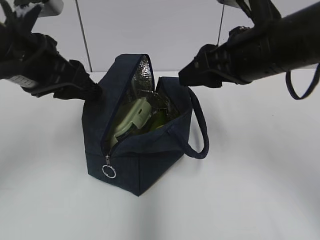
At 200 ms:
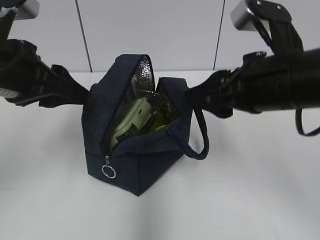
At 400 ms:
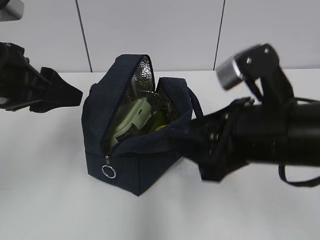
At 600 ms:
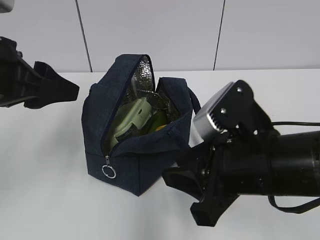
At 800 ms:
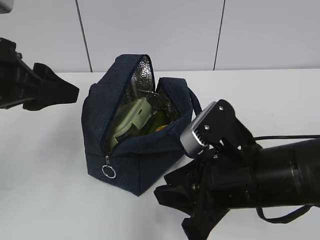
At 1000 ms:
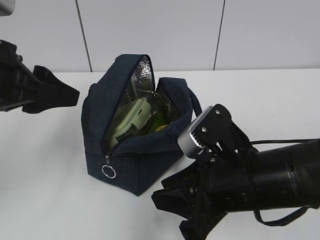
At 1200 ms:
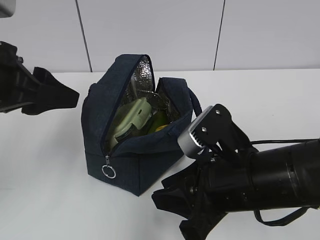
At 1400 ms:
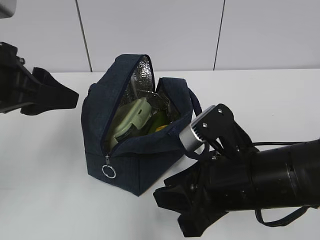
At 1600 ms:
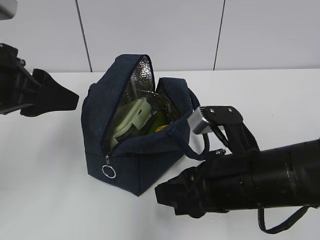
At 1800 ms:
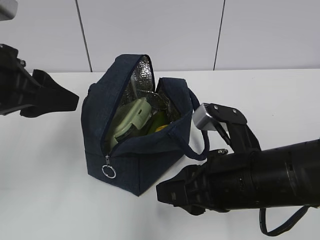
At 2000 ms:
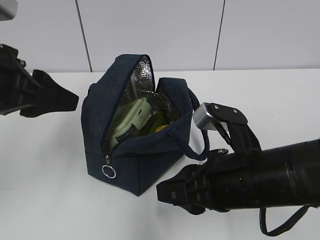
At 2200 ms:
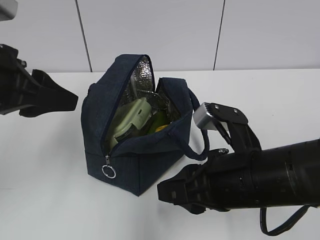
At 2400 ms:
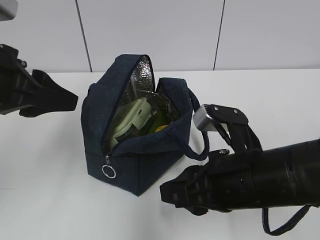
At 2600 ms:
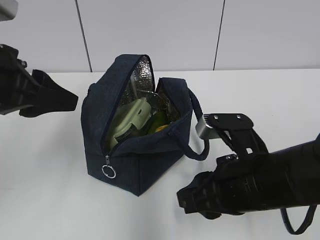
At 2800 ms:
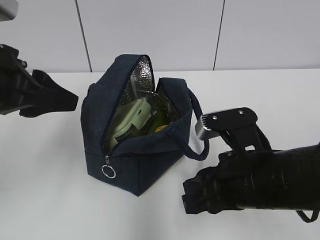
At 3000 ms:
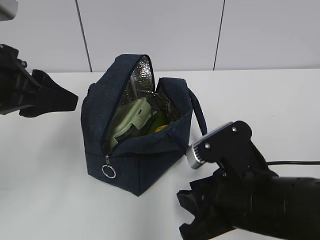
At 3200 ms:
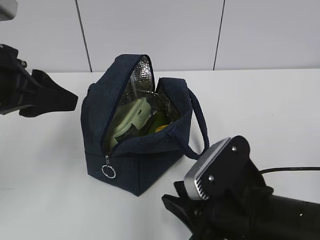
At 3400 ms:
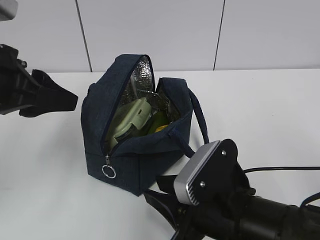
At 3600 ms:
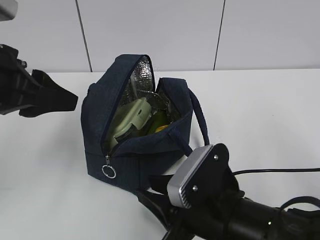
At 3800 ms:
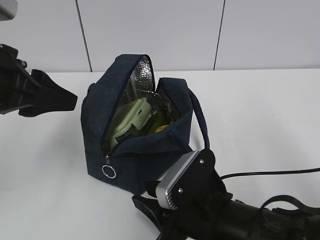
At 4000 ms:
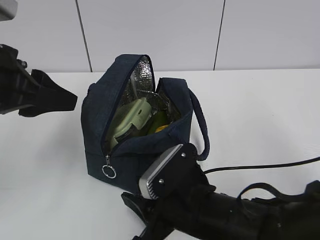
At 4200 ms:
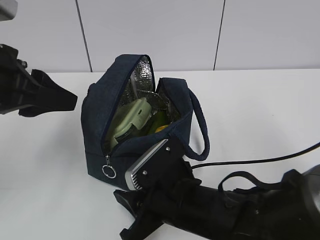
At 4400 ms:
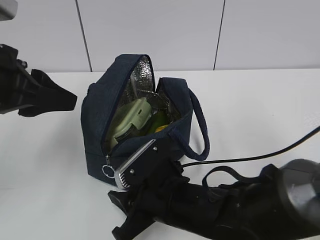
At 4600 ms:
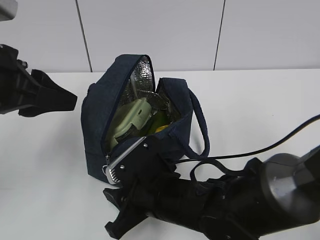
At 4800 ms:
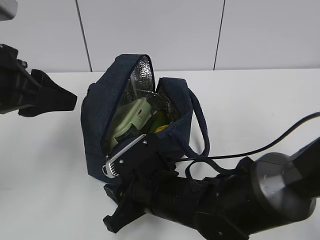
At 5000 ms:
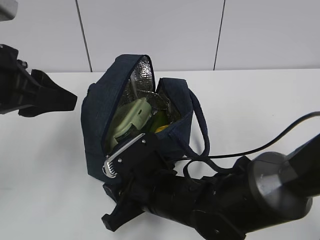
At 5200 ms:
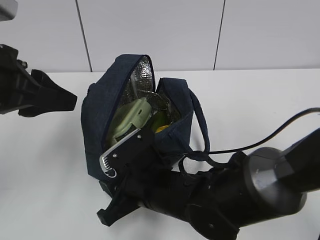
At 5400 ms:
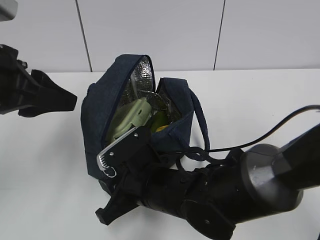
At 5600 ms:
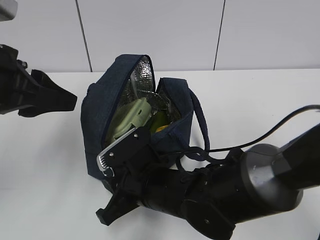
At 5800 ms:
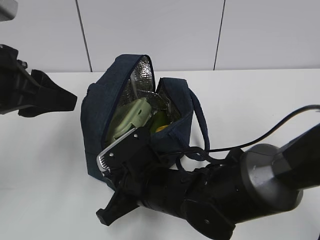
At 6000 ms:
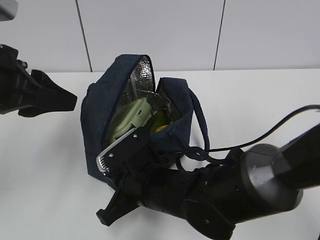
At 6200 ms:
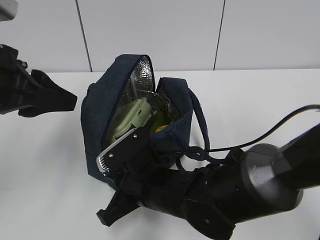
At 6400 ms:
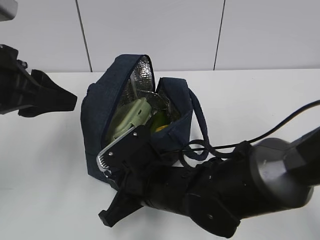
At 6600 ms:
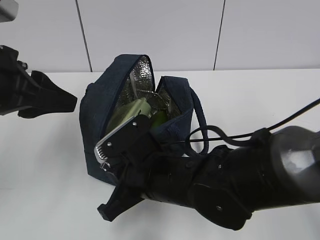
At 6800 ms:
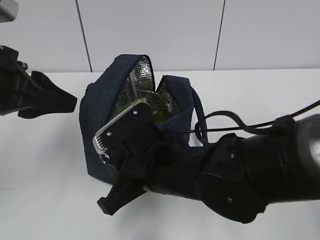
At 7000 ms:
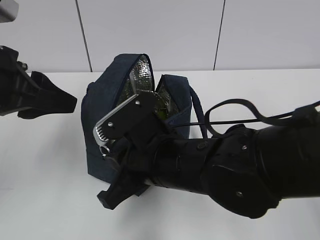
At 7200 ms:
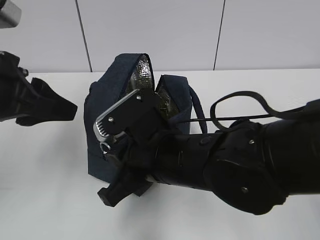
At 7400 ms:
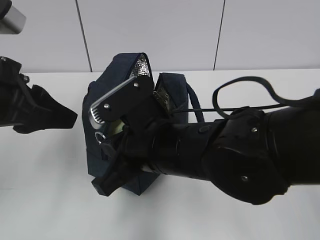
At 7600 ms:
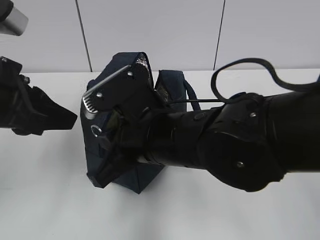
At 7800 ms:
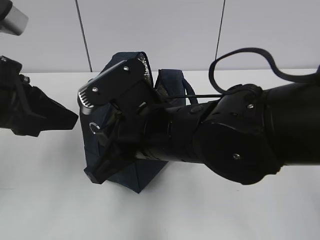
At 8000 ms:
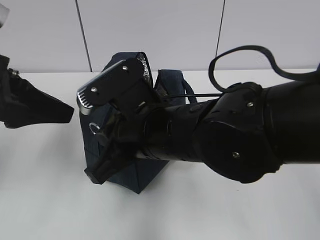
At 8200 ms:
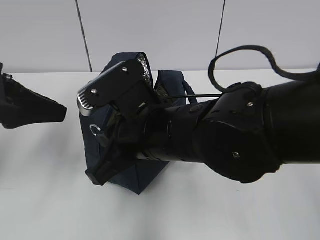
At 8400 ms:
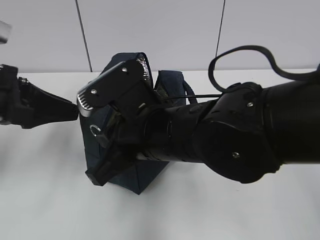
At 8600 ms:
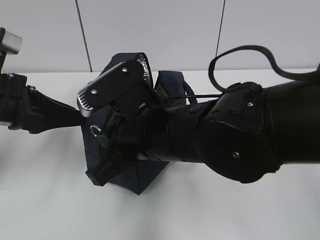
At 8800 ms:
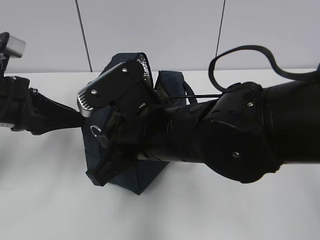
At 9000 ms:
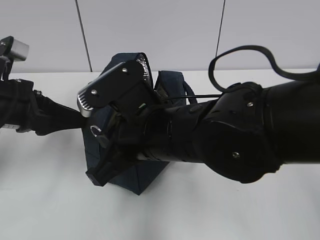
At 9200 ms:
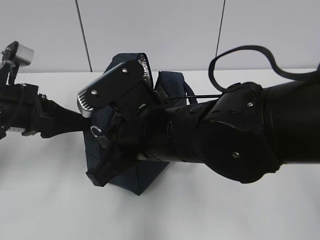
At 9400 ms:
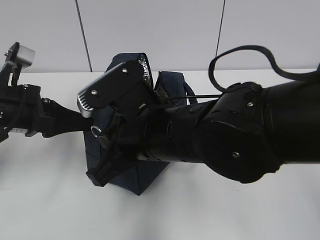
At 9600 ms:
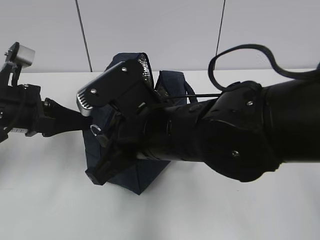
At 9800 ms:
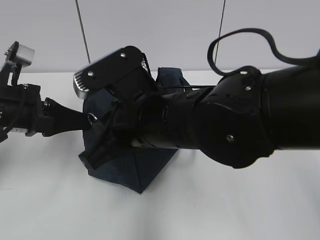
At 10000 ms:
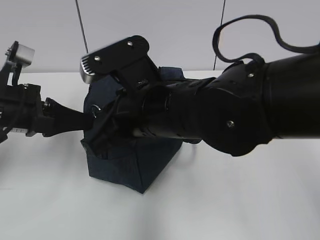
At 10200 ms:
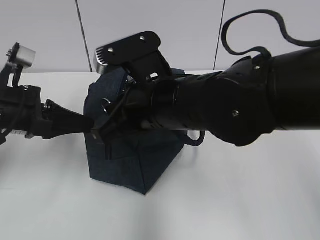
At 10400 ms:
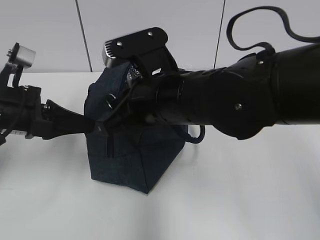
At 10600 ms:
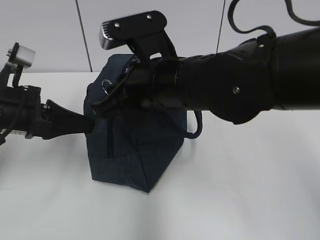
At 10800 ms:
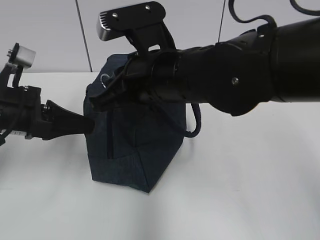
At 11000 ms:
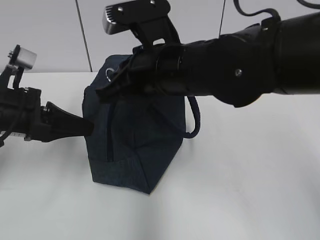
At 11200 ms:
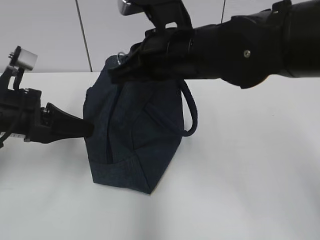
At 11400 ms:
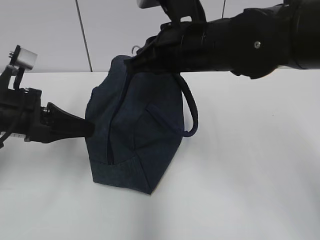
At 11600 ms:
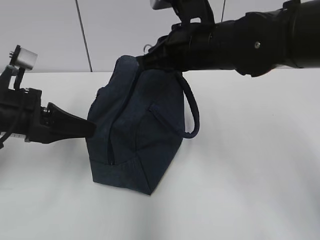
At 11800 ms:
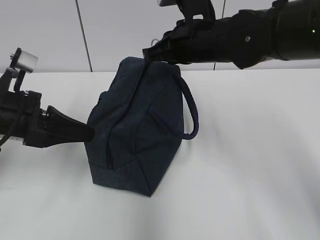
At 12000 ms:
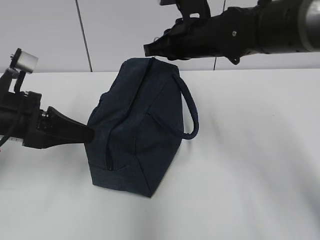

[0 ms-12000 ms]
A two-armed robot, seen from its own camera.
0 ms to 1600 ms: The right gripper travels downward and backward by roughly 15 cm; the left gripper heads backward, covering about 5 cm.
3000 ms to 4400 ms: The right gripper is displaced to the left and downward by some 10 cm.
4400 ms to 6000 ms: The right gripper closes its fingers.
6000 ms to 7600 ms: The right gripper goes some 10 cm upward.
7600 ms to 9000 ms: The left gripper is displaced downward and forward by approximately 10 cm.
9000 ms to 10400 ms: The left gripper closes its fingers.
10400 ms to 12000 ms: The right gripper heads forward and to the right, covering approximately 15 cm.

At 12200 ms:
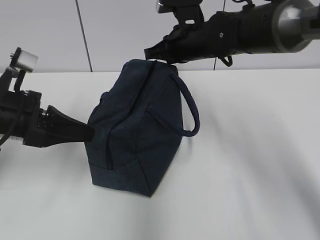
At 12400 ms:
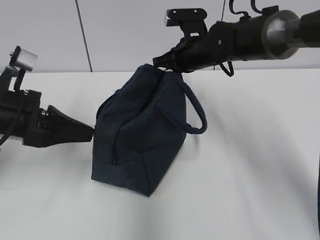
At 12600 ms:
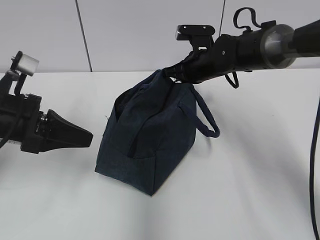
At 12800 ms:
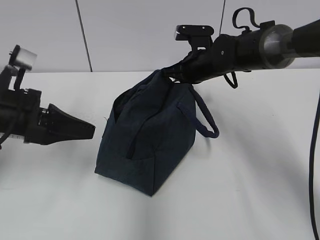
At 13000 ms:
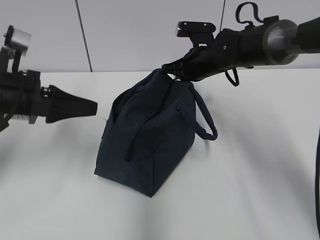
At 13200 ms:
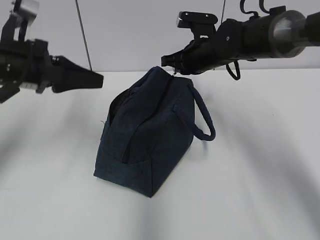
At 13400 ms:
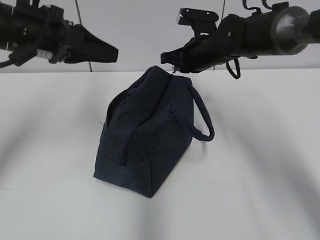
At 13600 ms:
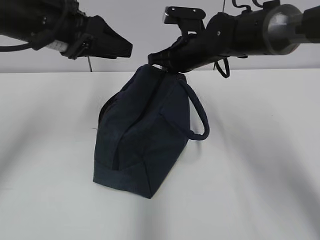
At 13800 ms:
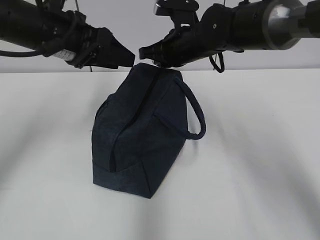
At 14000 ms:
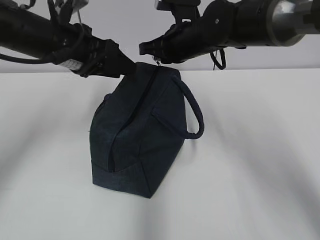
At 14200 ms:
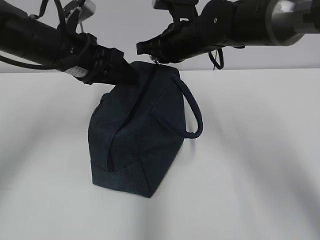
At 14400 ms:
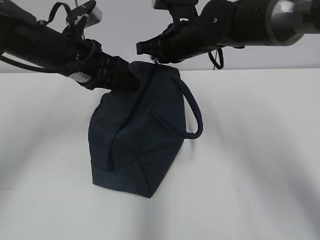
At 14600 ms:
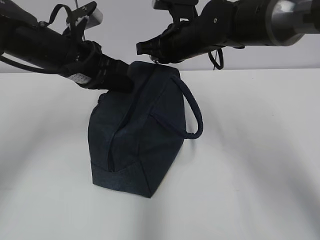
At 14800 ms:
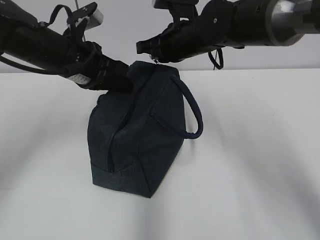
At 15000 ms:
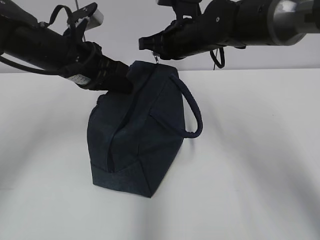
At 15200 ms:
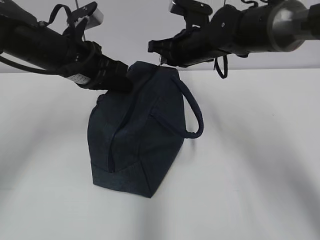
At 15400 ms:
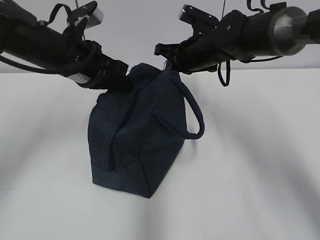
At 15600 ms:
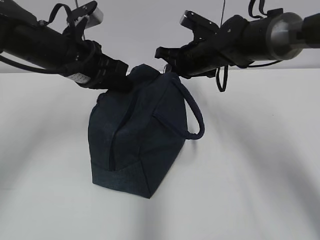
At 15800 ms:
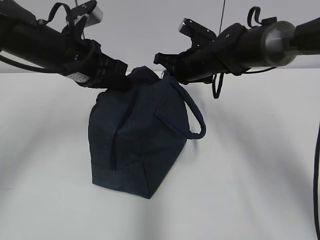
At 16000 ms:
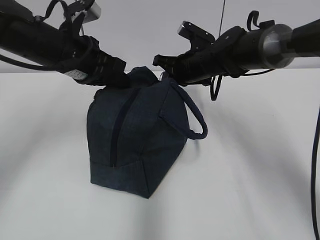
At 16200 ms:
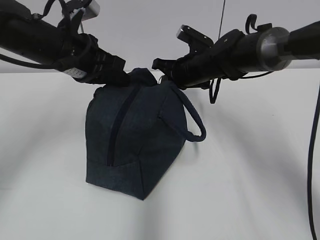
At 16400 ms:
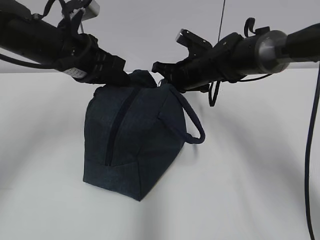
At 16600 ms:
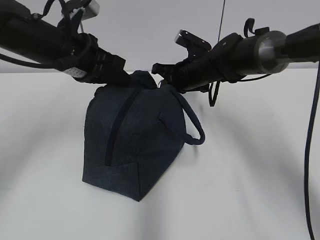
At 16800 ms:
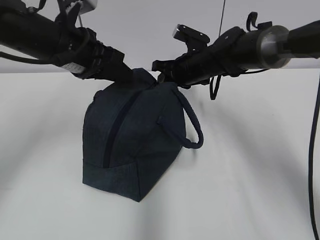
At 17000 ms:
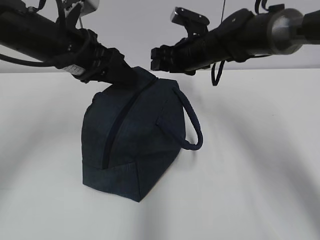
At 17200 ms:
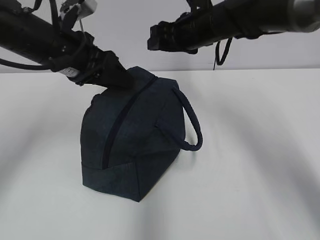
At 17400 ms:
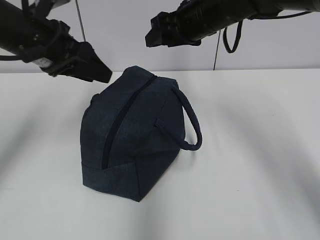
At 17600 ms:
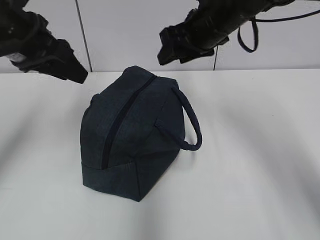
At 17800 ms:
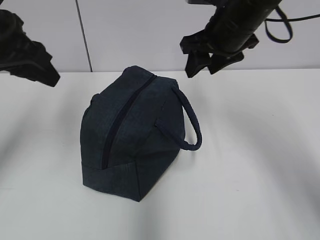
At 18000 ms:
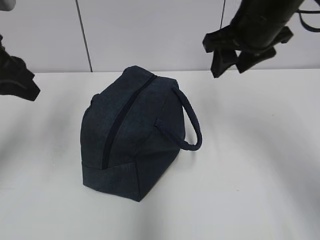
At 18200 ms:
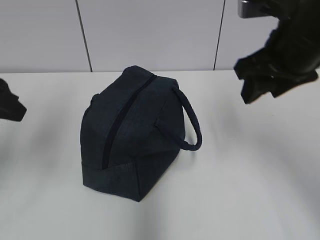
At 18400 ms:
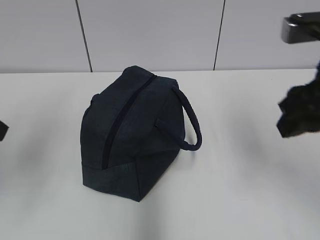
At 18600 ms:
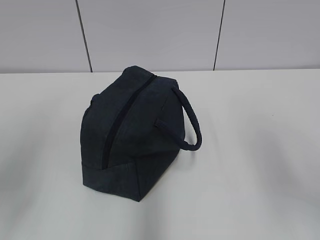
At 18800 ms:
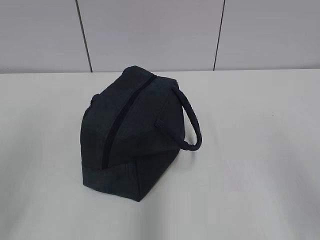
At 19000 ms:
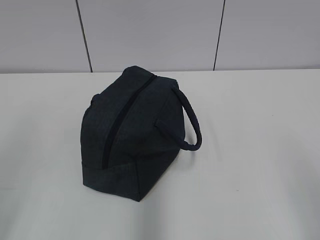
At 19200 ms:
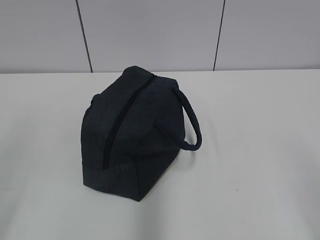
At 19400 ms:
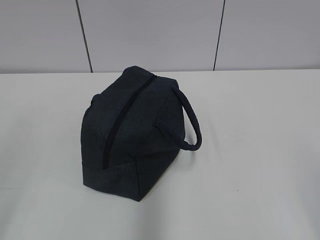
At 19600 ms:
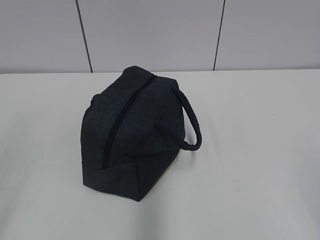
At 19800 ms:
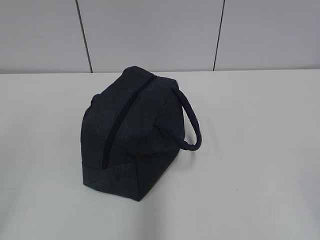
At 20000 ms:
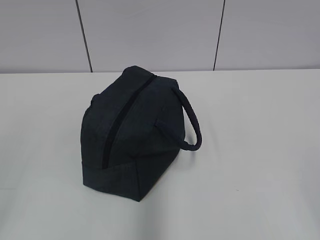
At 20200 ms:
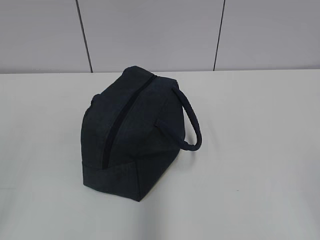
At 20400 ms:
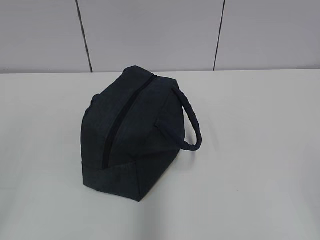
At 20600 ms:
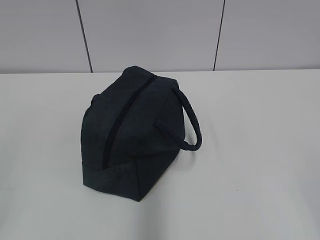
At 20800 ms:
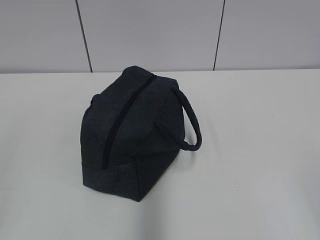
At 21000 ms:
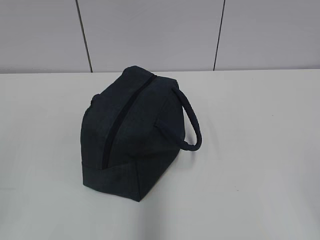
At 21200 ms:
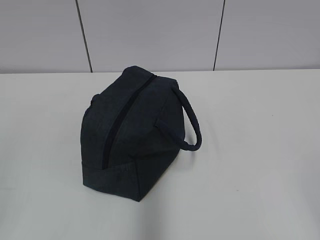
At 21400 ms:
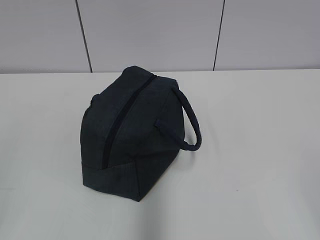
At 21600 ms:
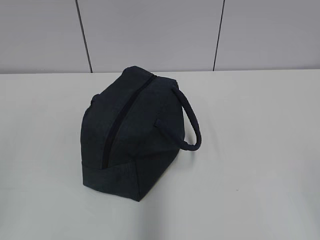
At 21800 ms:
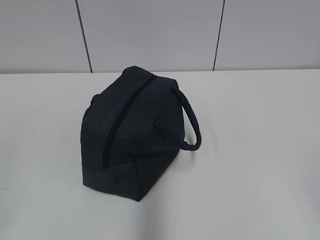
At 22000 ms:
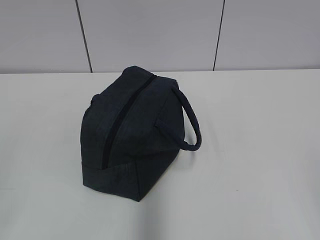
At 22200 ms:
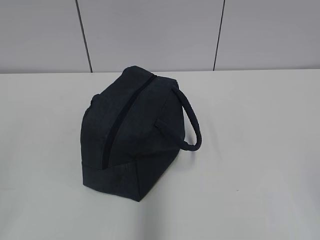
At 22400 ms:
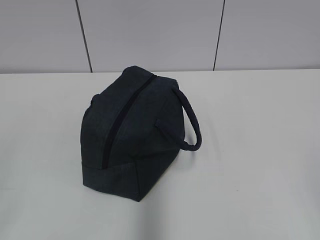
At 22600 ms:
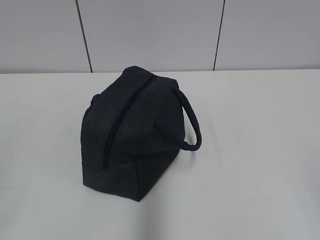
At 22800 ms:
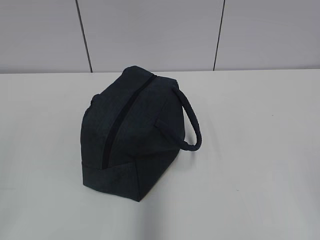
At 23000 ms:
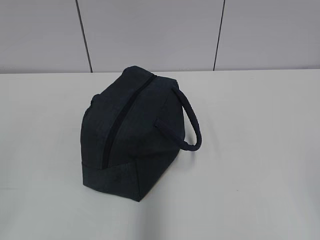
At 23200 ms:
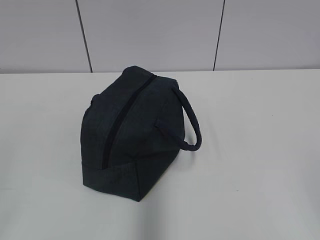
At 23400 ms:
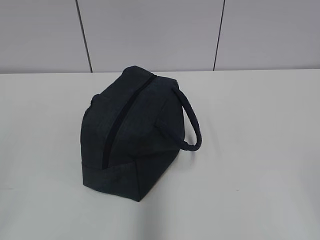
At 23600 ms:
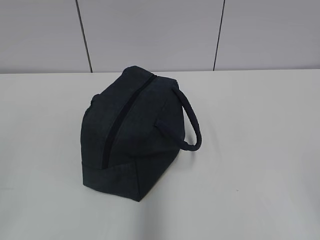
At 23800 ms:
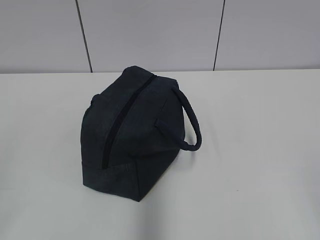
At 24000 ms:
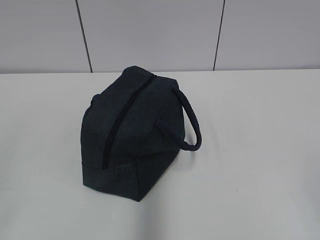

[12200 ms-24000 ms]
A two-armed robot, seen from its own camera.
Step, 12600 ms to 16800 ms: Pull the zipper with your right hand.
Step, 17000 ms to 17200 ms: Grab the lunch bag with your left hand.
12200 ms to 13600 ms: The left gripper is displaced upward, forward and to the right by approximately 15 cm, and opens up.
13600 ms to 15200 ms: The left gripper is displaced downward by roughly 5 cm, and closes its fingers.
15200 ms to 16600 ms: The right gripper shifts about 5 cm downward.
16600 ms to 18200 ms: The right gripper moves backward, upward and to the right, roughly 25 cm, and opens its fingers. The left gripper travels backward and to the left by roughly 15 cm, and opens.
18200 ms to 19600 ms: Both grippers move backward, about 25 cm.
22600 ms to 24000 ms: Neither gripper changes place.
